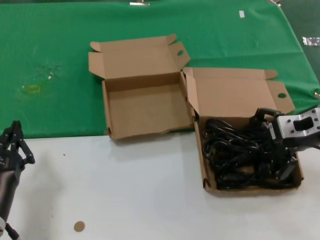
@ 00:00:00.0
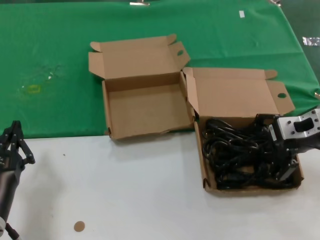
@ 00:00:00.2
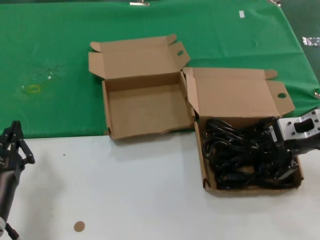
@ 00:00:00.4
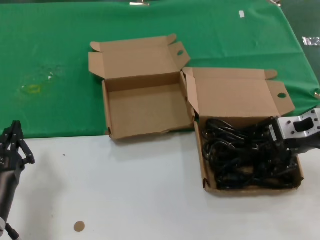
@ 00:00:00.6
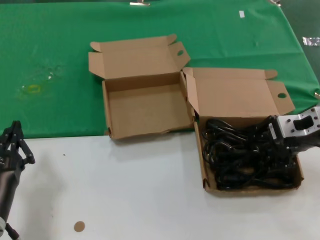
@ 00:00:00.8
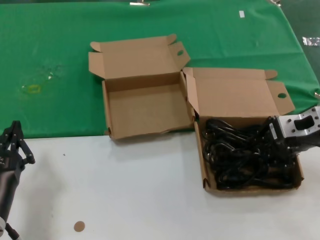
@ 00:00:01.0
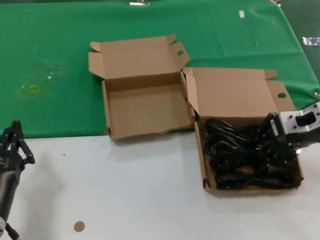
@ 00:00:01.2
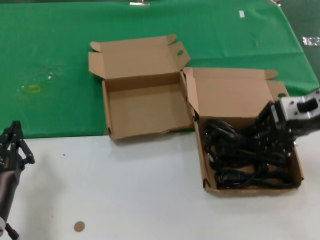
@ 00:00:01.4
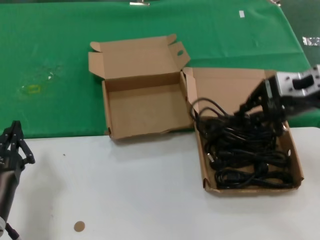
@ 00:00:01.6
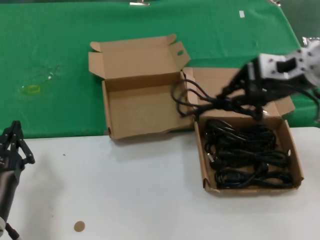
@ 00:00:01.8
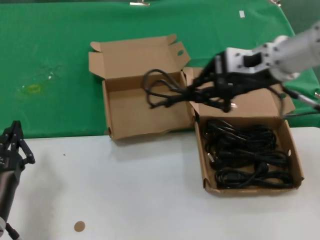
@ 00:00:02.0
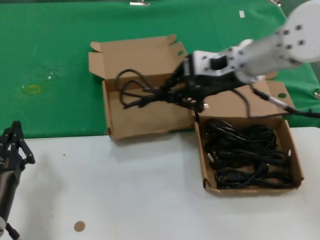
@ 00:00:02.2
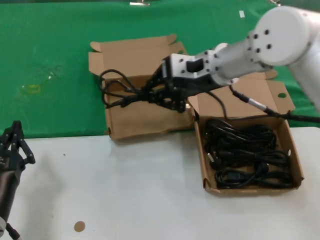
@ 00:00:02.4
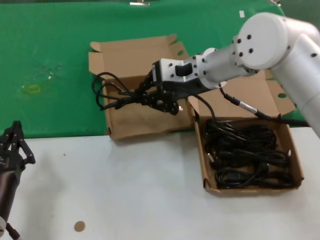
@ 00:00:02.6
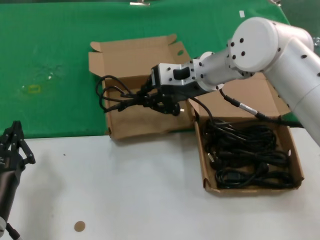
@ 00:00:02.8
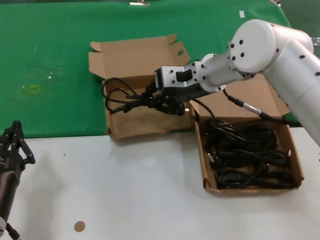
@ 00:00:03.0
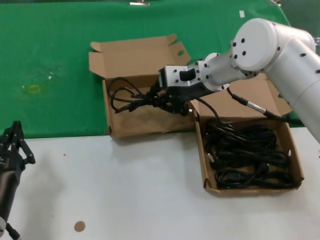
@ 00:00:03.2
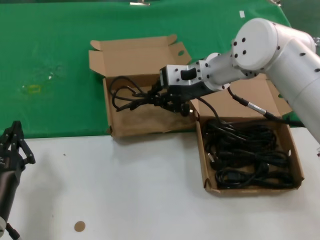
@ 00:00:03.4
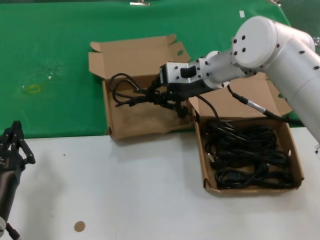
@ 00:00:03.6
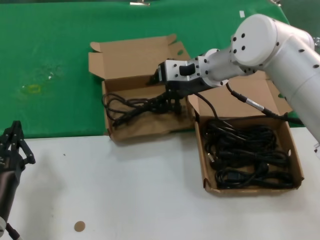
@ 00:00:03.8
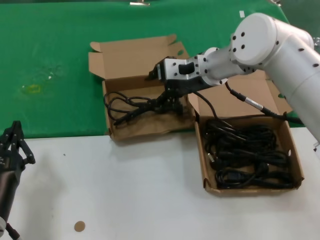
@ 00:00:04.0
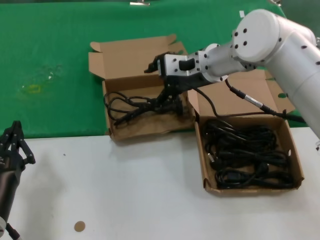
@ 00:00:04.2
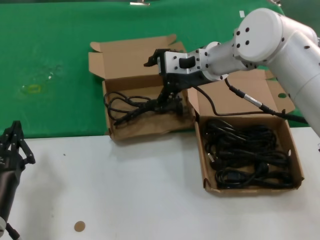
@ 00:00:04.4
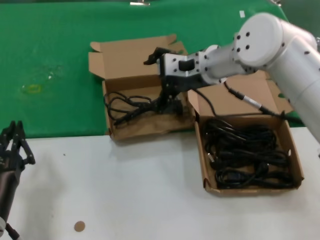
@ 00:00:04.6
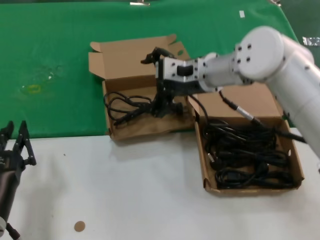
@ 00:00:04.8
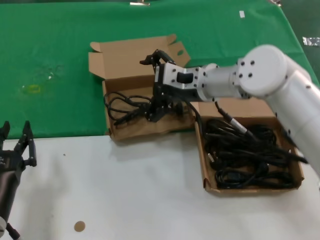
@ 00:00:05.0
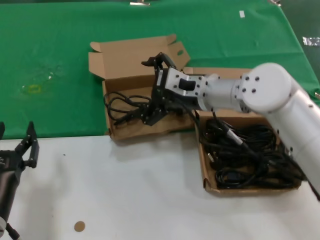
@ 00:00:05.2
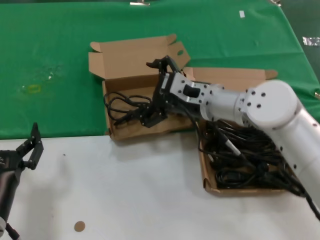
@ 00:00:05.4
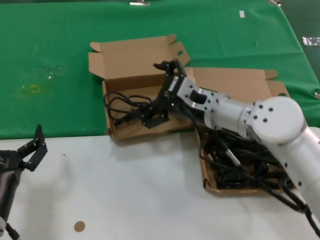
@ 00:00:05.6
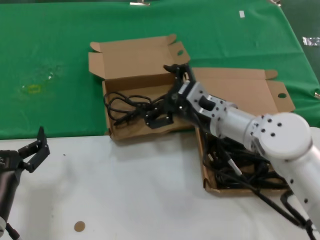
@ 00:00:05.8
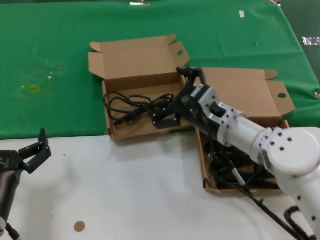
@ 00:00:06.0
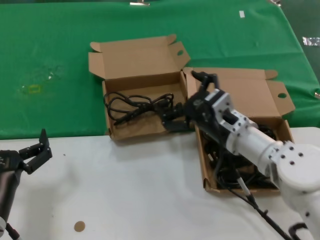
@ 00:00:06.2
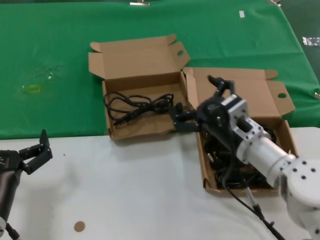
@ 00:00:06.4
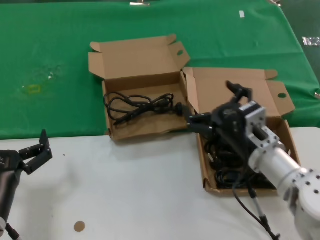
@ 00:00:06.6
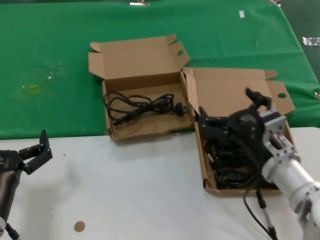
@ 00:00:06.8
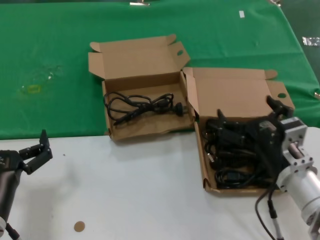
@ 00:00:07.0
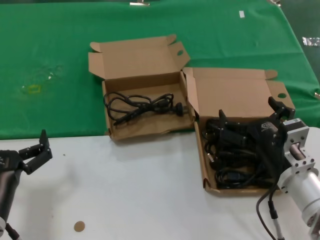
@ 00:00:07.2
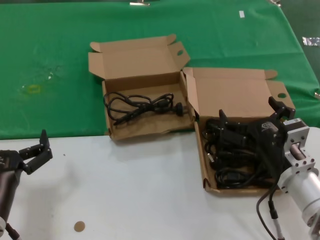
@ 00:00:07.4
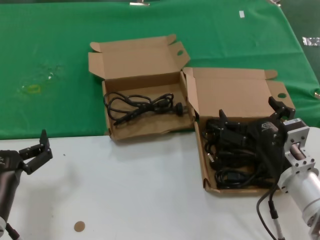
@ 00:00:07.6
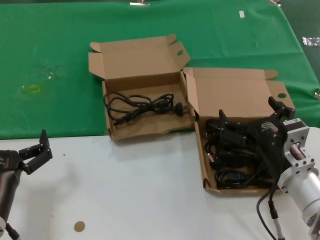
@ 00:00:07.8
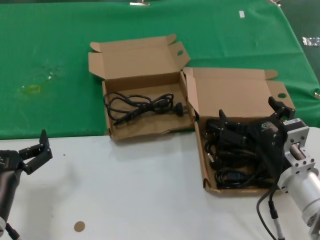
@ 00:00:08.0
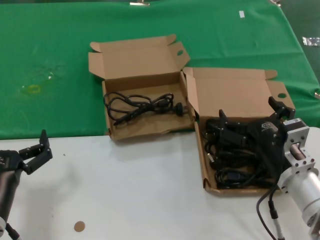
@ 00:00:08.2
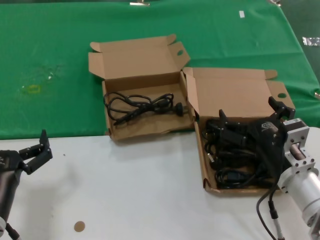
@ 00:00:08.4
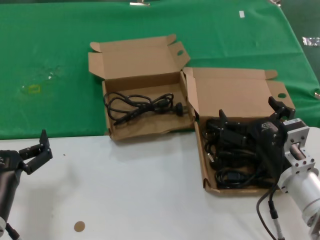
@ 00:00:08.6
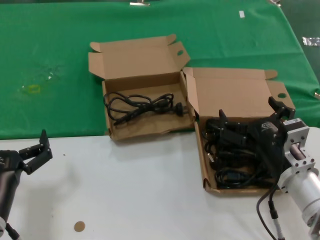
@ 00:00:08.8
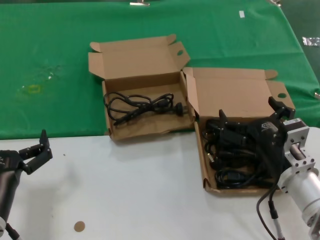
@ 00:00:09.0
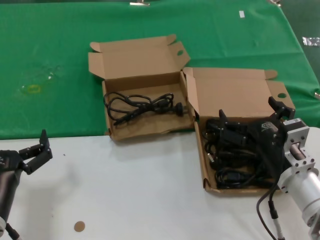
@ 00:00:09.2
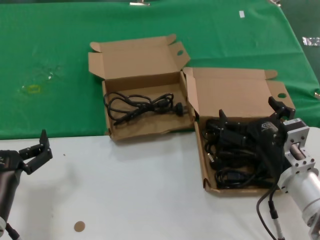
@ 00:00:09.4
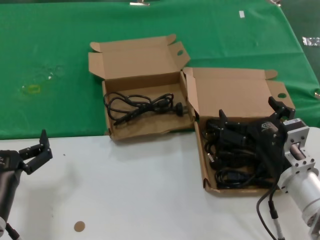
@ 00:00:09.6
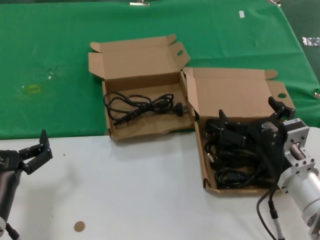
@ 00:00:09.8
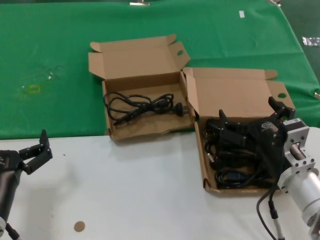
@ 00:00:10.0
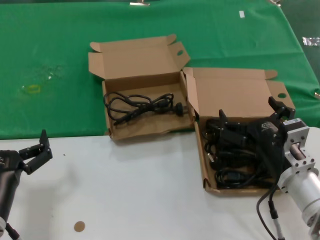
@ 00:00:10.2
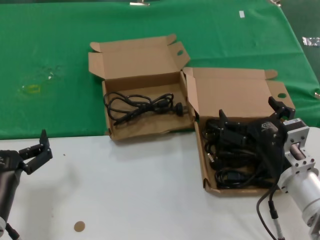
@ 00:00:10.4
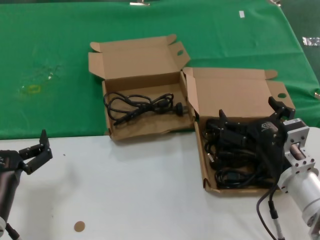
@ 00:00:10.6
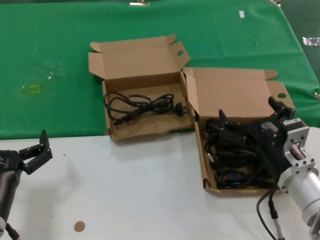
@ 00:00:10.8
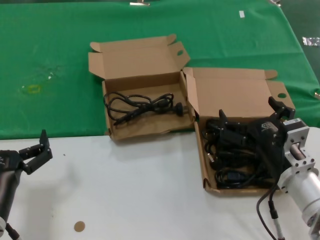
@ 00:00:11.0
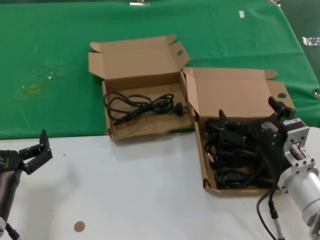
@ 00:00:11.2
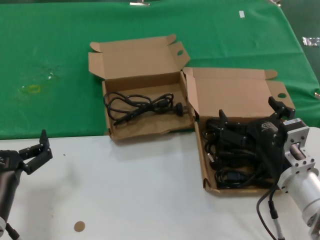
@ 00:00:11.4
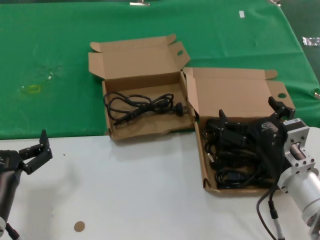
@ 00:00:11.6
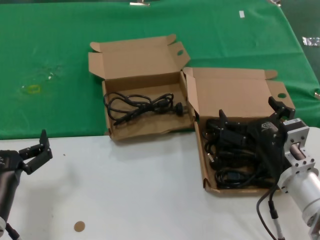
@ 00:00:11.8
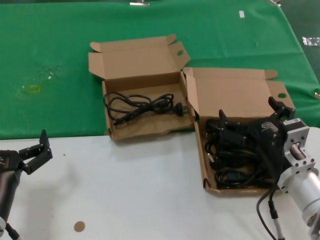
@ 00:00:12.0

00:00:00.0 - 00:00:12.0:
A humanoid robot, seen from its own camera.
Task of the whole recording: take the parts from the box containing them and put them into an empty box.
Step, 00:00:00.8 - 00:00:03.8: Place the data cable in the another box.
00:00:00.0 - 00:00:01.6: The right hand travels upward by roughly 5 cm.
00:00:01.6 - 00:00:03.0: The right hand heads to the left and forward, covering roughly 20 cm.
00:00:03.0 - 00:00:04.4: The hands make only small movements.
00:00:04.4 - 00:00:06.0: The right hand is displaced downward and backward by approximately 15 cm.
00:00:06.0 - 00:00:07.6: The right hand travels backward, to the right and downward by about 15 cm.
00:00:07.6 - 00:00:12.0: Both hands stay put.

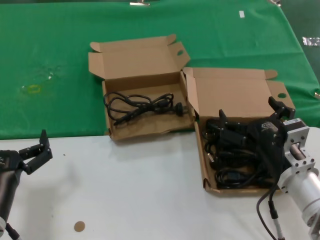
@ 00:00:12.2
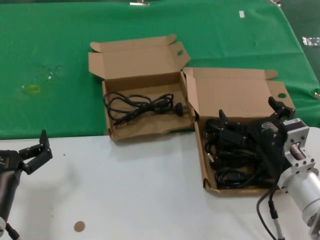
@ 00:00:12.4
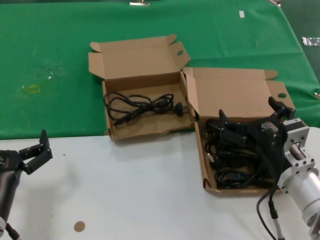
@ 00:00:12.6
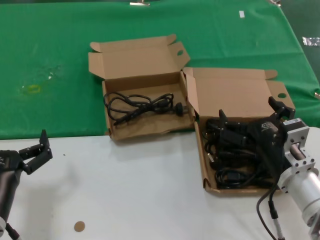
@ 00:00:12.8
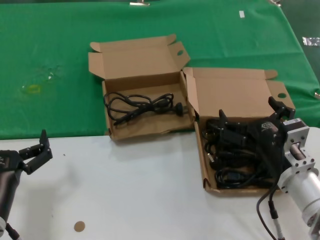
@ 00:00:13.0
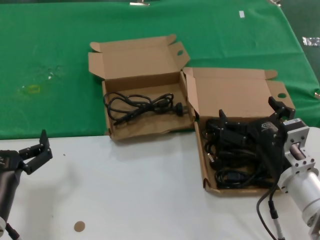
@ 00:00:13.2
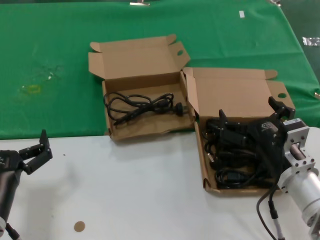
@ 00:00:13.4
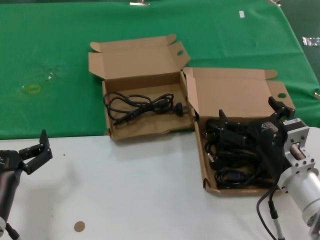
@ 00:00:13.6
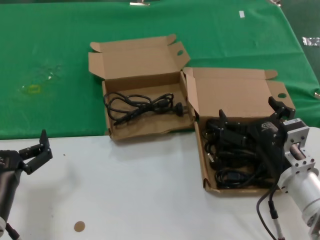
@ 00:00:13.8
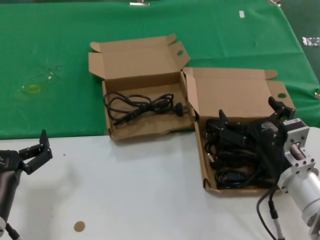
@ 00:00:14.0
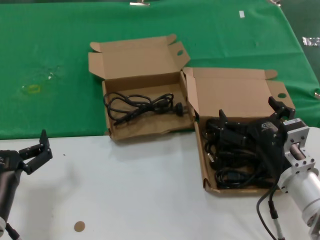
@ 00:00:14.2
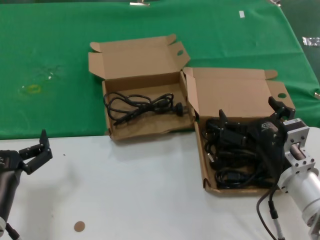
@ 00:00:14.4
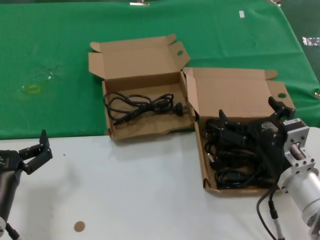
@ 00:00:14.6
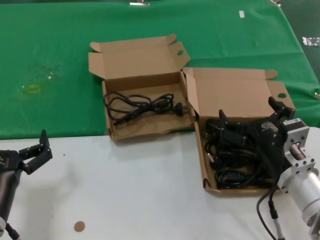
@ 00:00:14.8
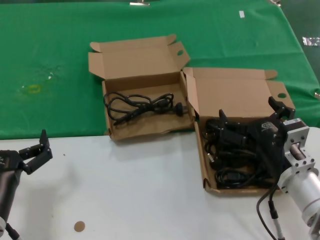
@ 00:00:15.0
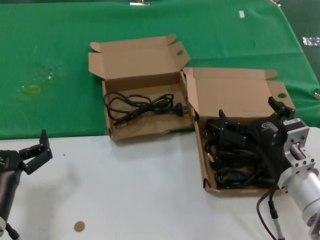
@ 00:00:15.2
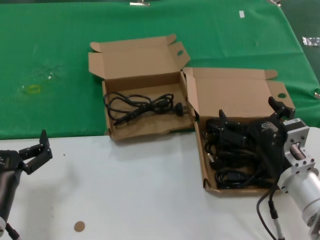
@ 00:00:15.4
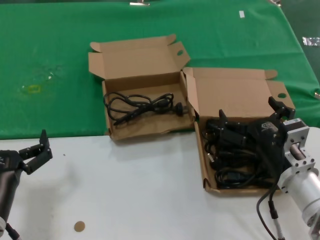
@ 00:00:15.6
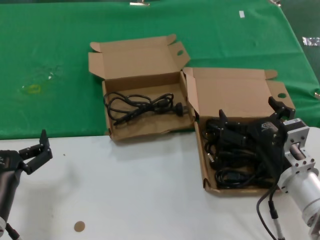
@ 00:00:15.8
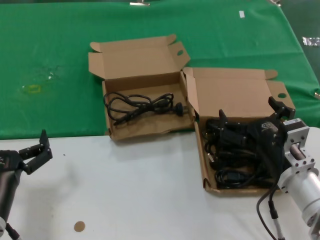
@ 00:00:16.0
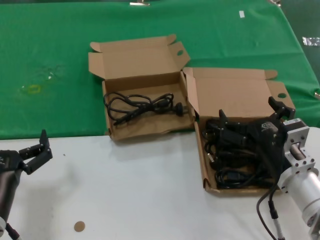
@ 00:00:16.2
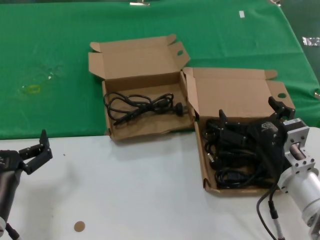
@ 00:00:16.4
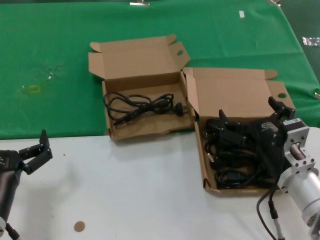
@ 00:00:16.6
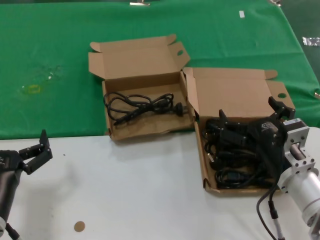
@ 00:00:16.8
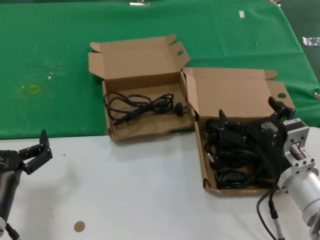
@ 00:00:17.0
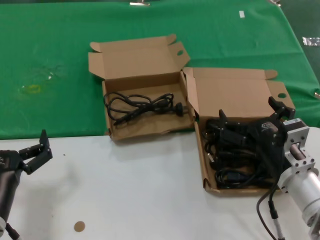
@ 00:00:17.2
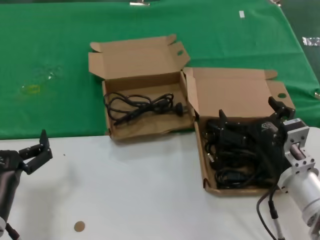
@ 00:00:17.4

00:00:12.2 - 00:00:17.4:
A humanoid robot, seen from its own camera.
Task of the whole recording: take the parts from the box containing them and put them into an empty box.
00:00:12.2 - 00:00:17.4: The two hands keep their place.
